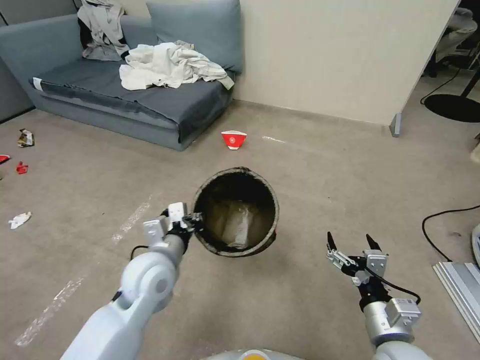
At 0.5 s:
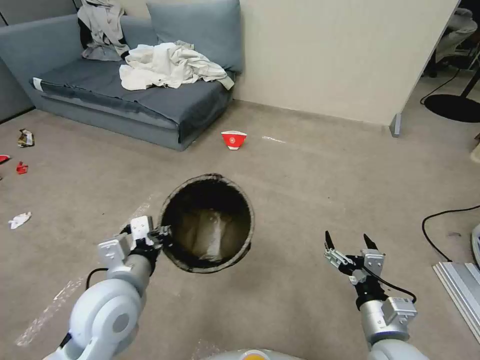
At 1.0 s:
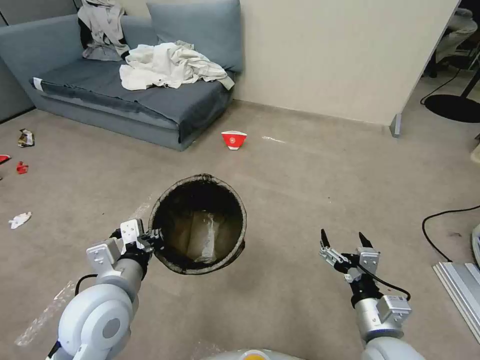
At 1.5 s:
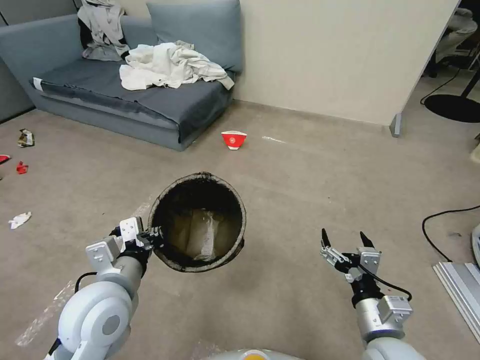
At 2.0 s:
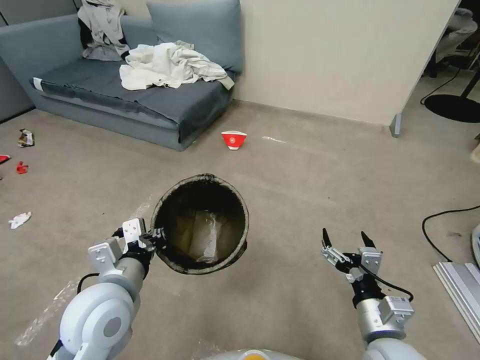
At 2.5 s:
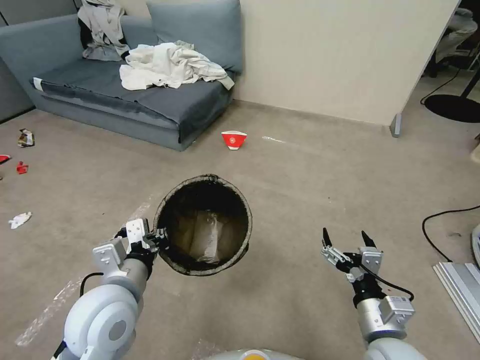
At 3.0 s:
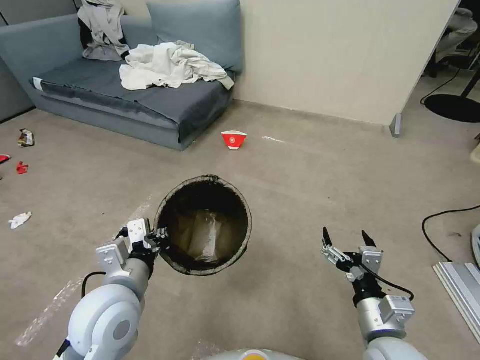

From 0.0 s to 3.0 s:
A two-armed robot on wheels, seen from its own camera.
Task of the whole recording: Pick up the trash can from the floor.
From 0.0 s to 1.5 s: The left gripper is displaced backward by roughly 5 cm.
From 1.5 s to 3.0 s: The grippers make only small movements.
